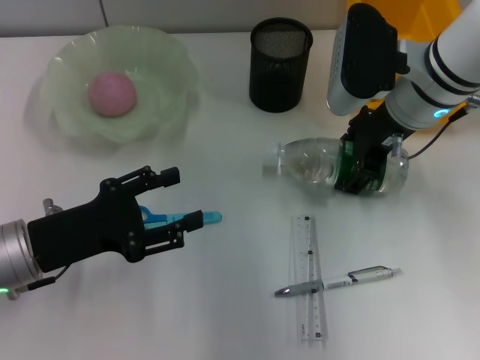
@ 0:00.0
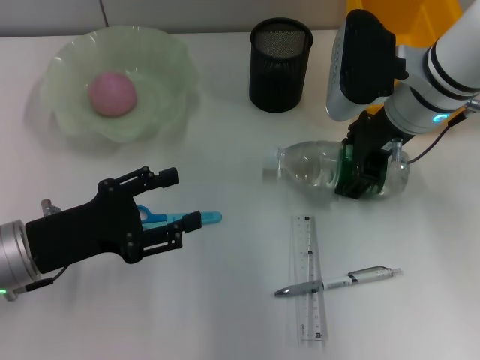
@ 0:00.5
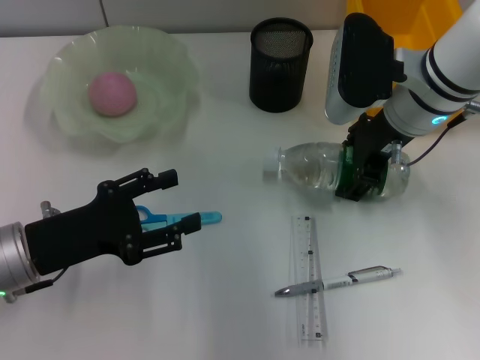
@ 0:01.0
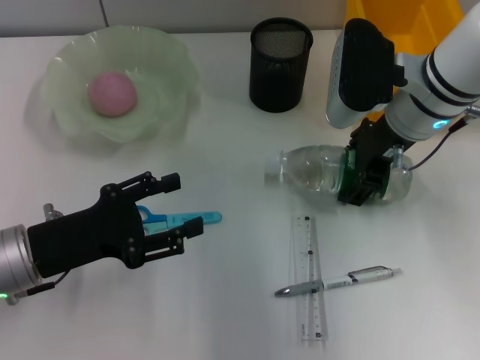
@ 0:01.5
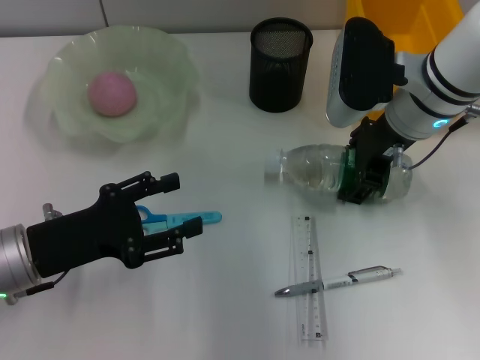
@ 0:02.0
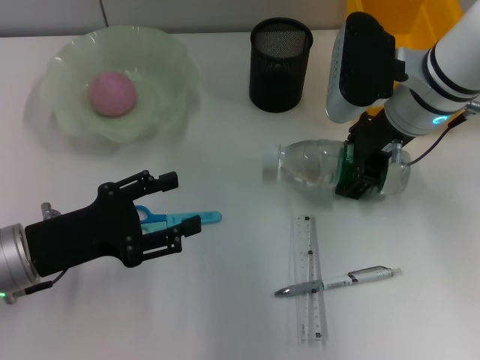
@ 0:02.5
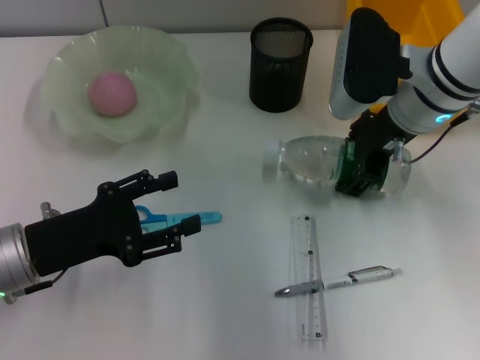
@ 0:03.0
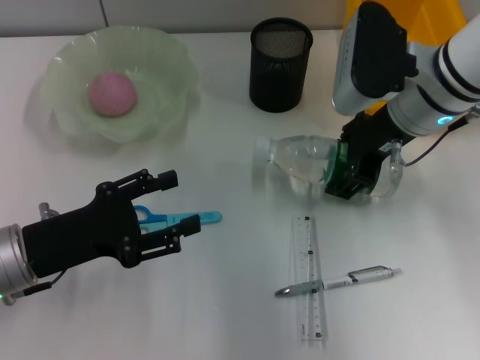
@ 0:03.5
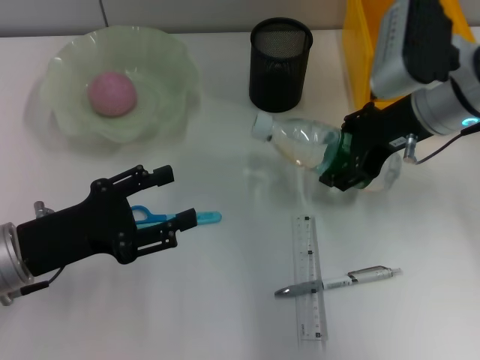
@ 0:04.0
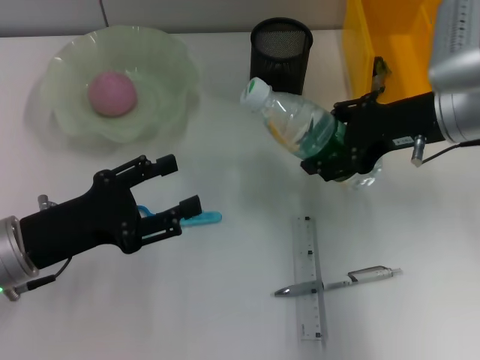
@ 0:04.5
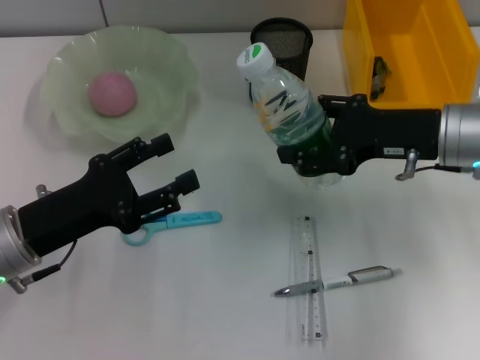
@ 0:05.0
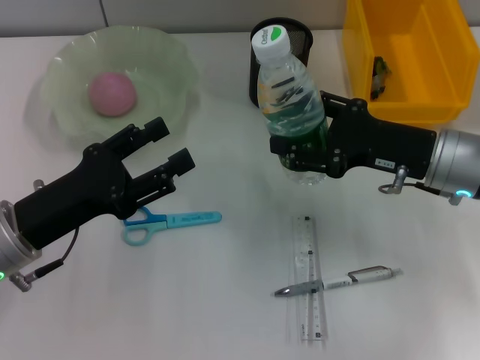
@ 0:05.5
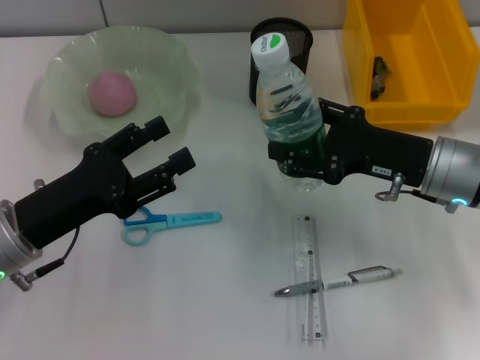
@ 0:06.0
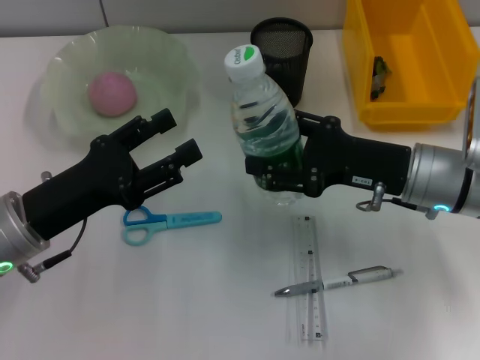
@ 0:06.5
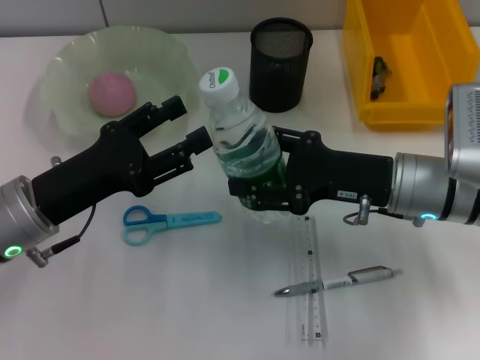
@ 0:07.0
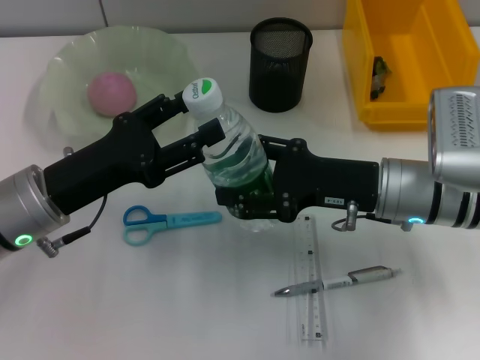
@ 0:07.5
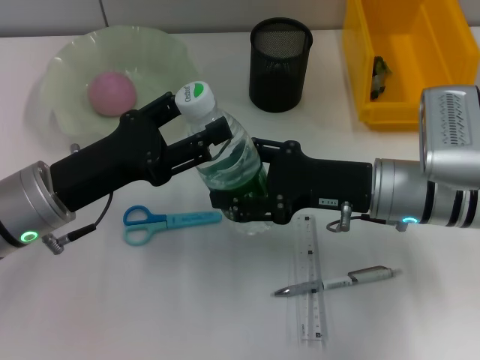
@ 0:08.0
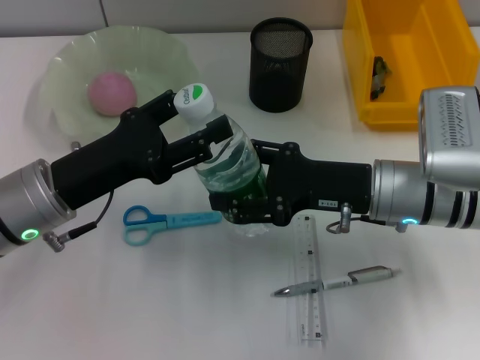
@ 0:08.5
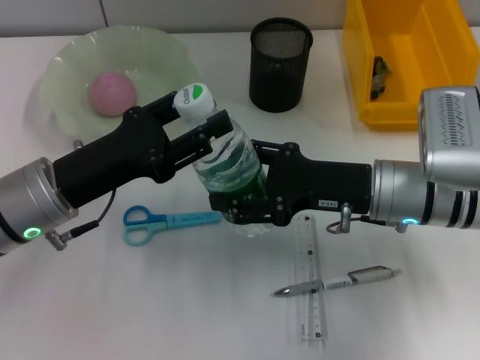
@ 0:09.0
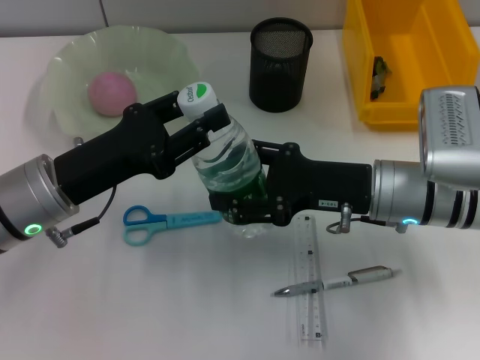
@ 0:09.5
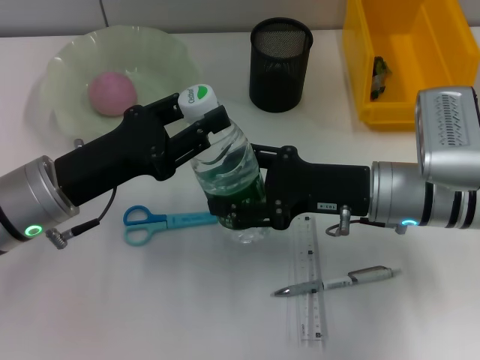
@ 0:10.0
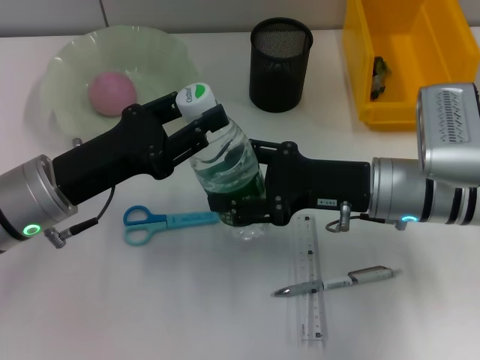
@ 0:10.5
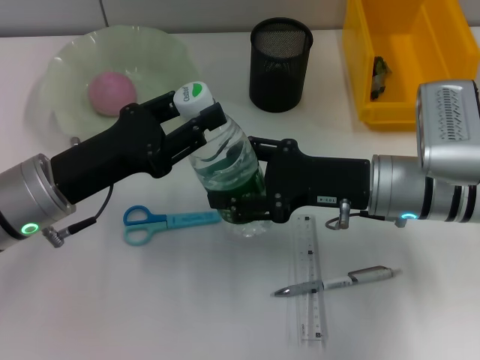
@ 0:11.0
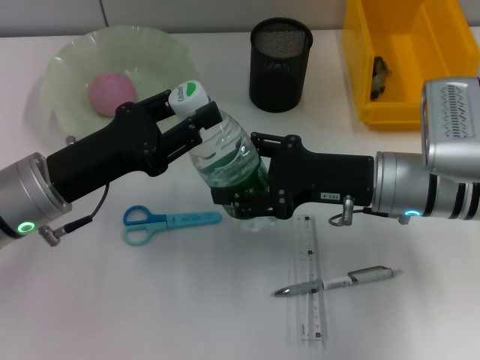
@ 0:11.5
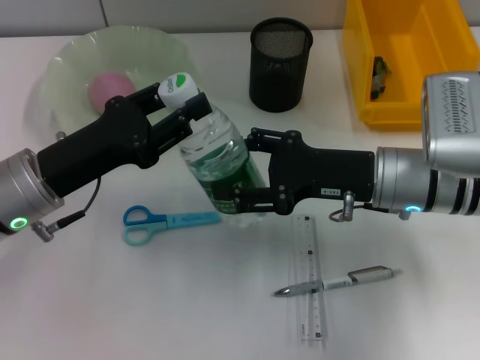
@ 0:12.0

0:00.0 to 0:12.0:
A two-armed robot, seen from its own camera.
Step, 0:00.0 to 0:02.0: Grab the water bottle with the right hand.
0:00.0 to 0:02.0: The two grippers keep their place.
0:02.0 to 0:04.0: The grippers make only small movements.
0:04.0 to 0:06.0: The right gripper shifts some 10 cm downward and backward.
0:06.0 to 0:08.0: The right gripper goes roughly 5 cm to the left.
0:08.0 to 0:12.0: The two grippers keep their place.

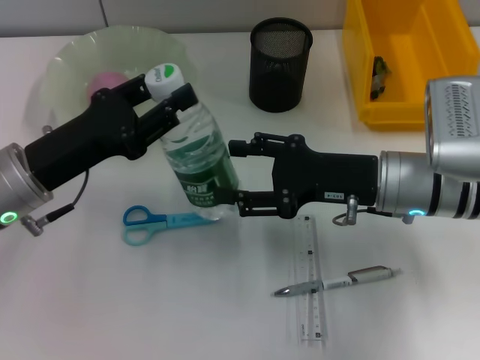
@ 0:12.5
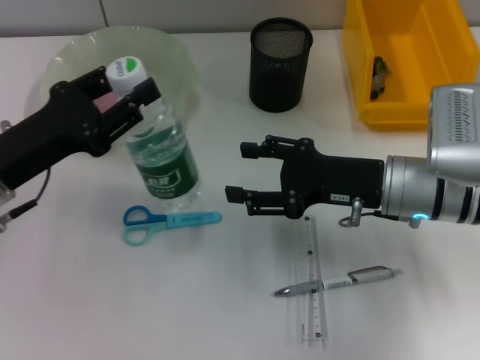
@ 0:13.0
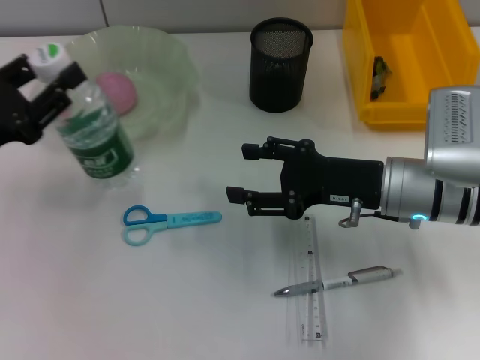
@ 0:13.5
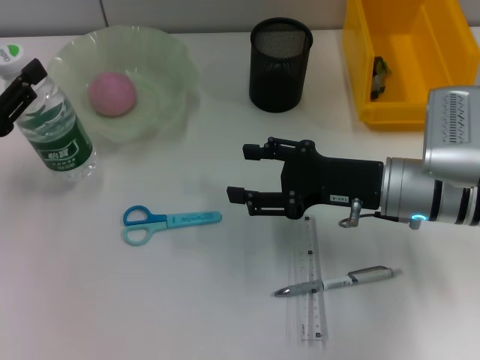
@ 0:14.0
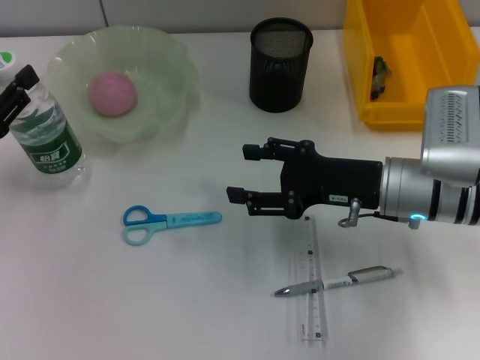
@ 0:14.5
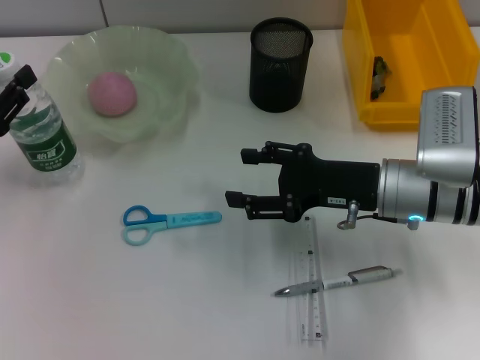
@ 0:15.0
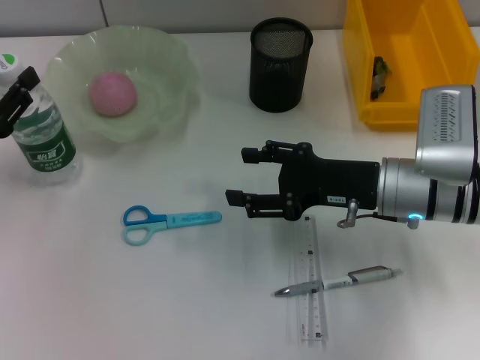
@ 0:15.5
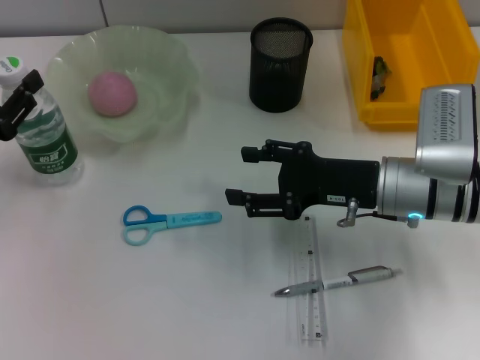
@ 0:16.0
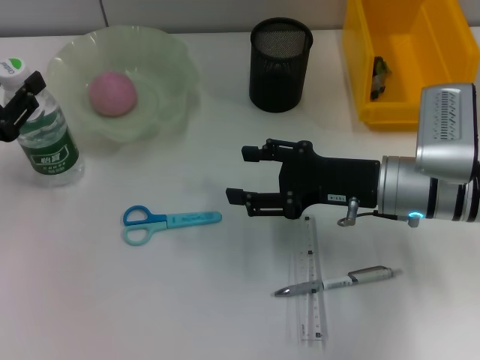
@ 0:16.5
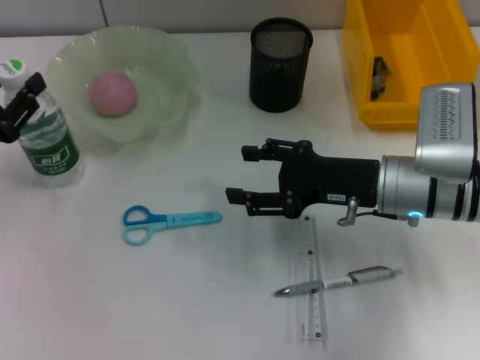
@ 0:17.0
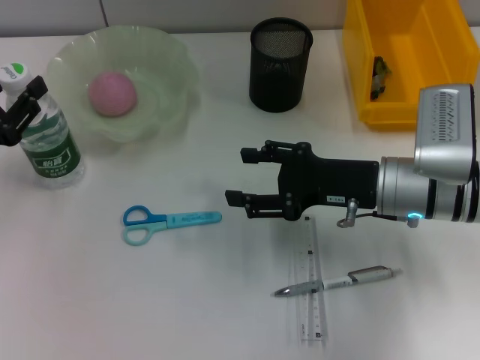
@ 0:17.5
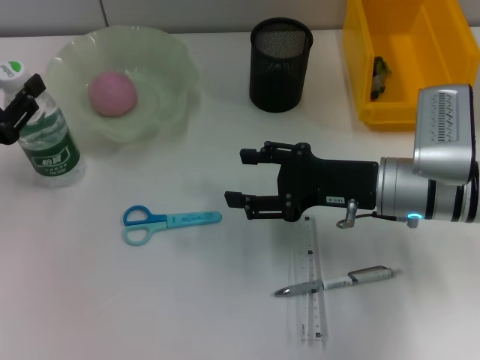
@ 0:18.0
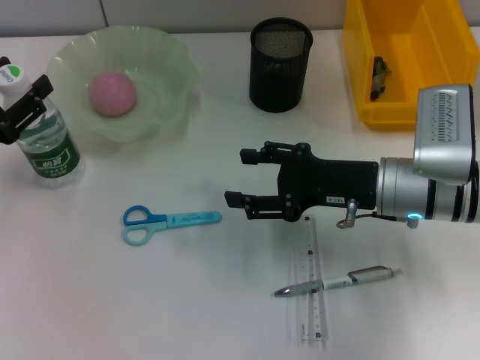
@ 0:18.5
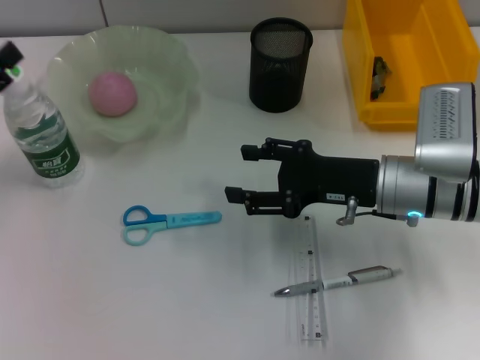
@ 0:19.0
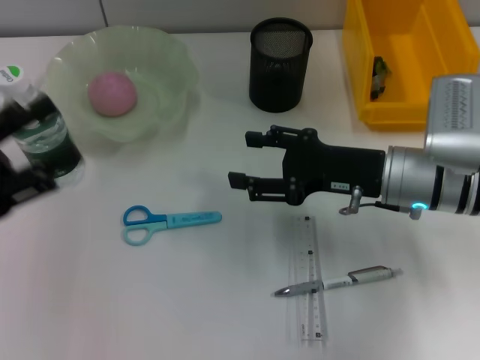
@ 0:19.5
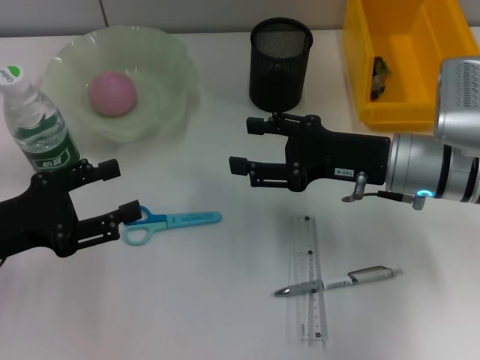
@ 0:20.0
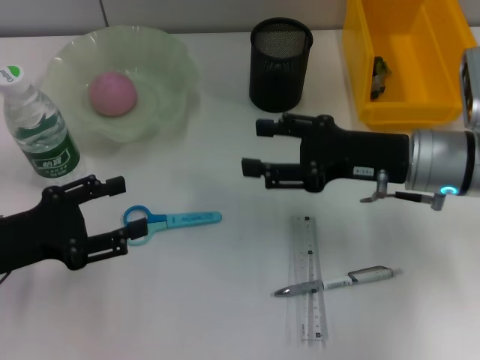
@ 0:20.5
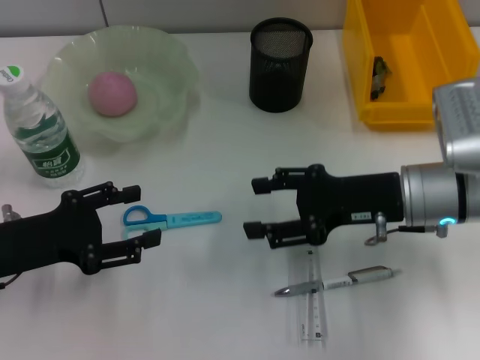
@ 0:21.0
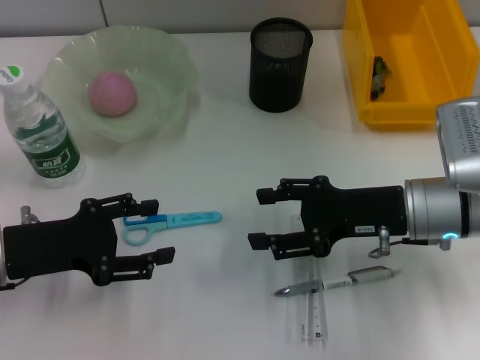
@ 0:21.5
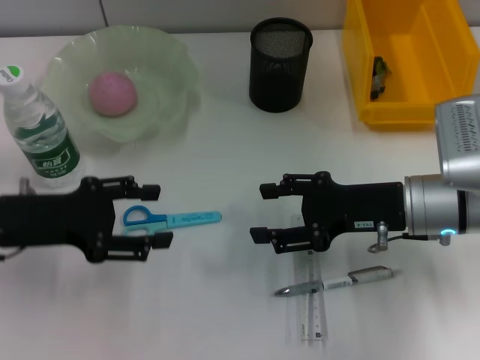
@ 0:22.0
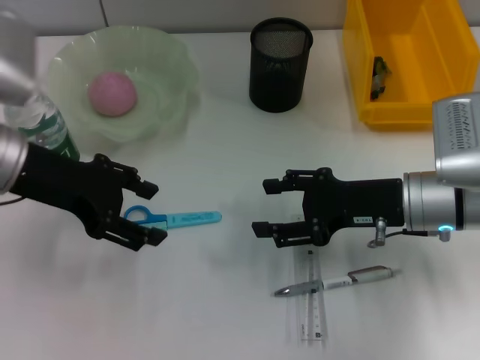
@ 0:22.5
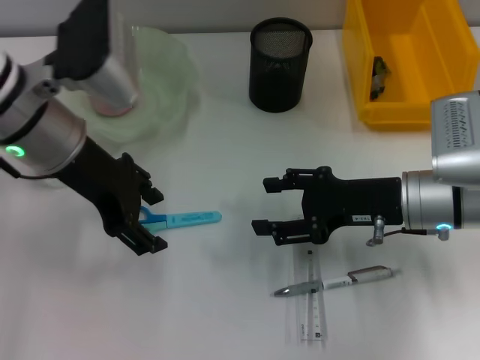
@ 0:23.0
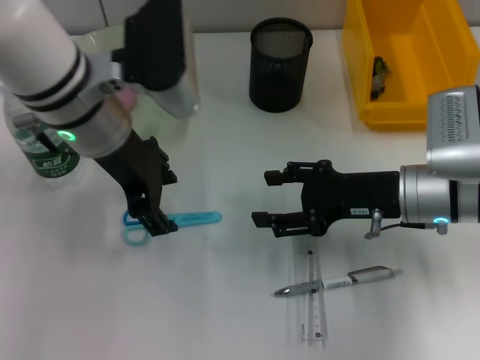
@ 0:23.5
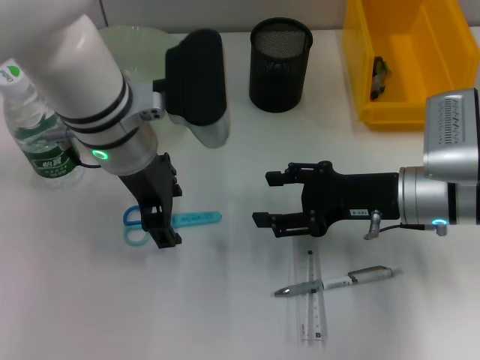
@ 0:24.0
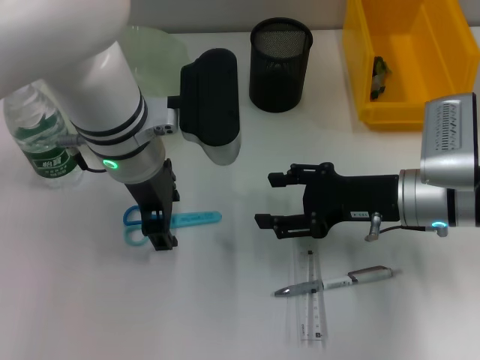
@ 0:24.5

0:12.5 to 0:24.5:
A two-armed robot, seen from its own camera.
Step, 0:12.5 to 0:18.5: Place the water bottle on the table with the left hand.
0:12.5 to 0:14.5: The left gripper is displaced to the left by roughly 10 cm.
0:14.5 to 0:16.5: The grippers stay close to where they were, moving slightly.
0:16.5 to 0:18.5: The two grippers keep their place.
0:18.5 to 0:20.5: The left gripper ends up about 5 cm from where it was.
0:20.5 to 0:22.5: The left gripper moves upward, forward and to the right, about 15 cm.
0:22.5 to 0:24.5: The left gripper moves to the right, roughly 15 cm.

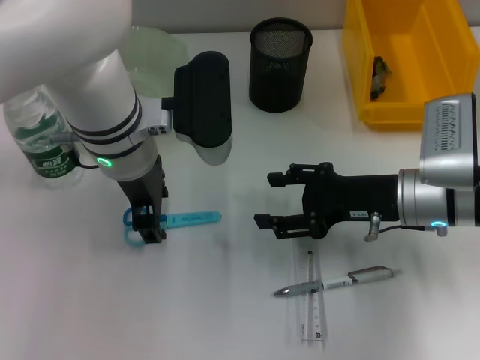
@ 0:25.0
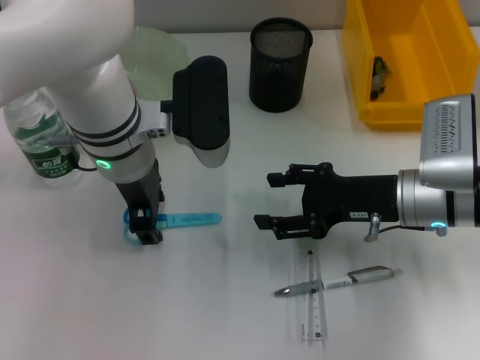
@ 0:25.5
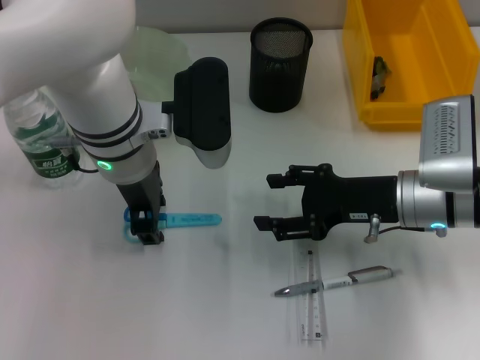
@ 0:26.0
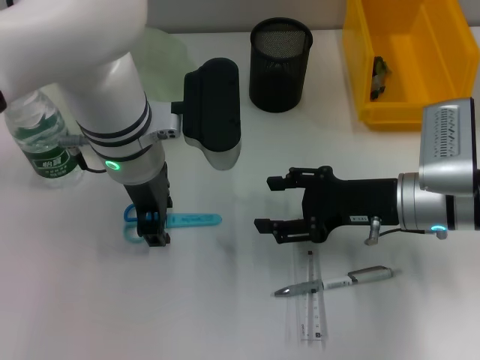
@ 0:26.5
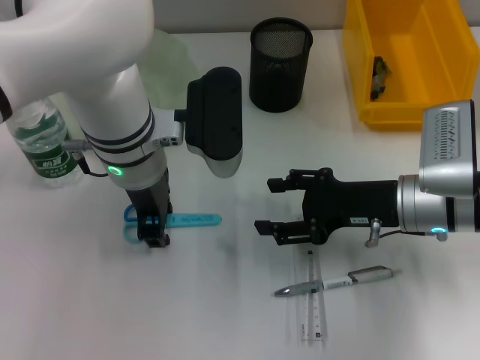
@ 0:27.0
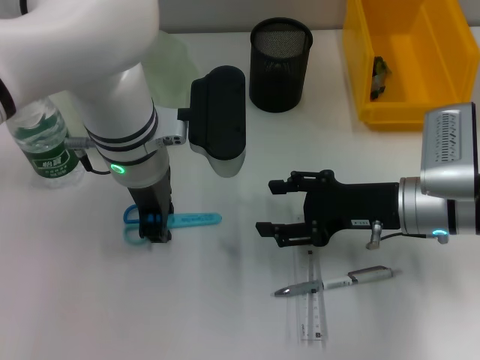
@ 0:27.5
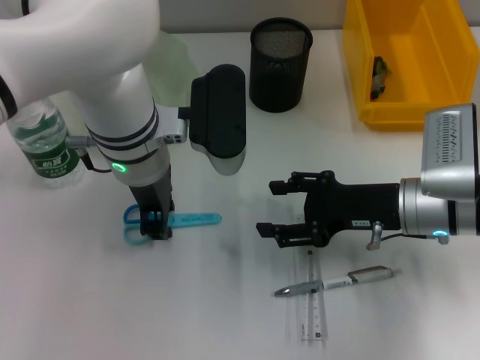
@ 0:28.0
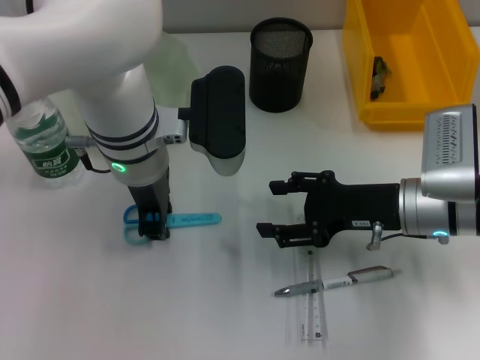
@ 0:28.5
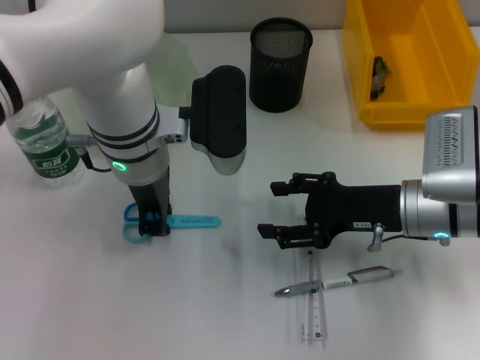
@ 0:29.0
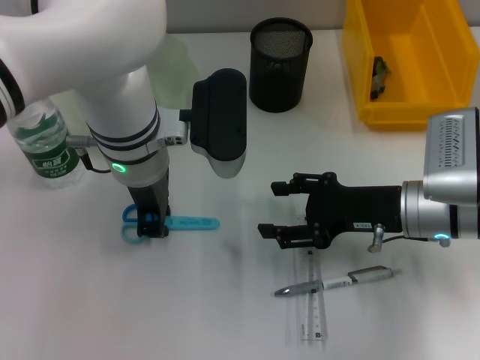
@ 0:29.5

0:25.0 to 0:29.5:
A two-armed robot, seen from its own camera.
Step, 0:25.0 to 0:29.5: Grab the blue scissors with the left hand.
0:25.0 to 0:27.0: Both grippers stay about where they are.
0:27.0 to 0:29.5: Both grippers stay about where they are.